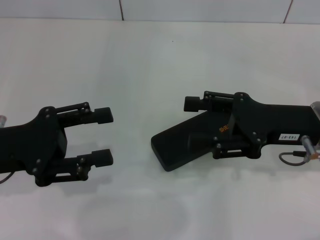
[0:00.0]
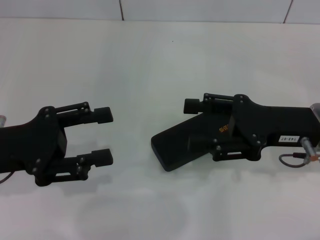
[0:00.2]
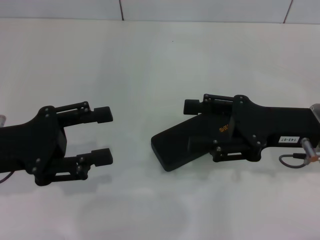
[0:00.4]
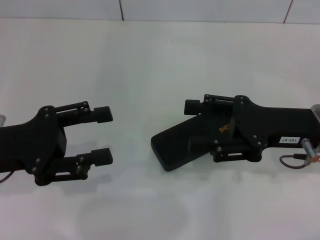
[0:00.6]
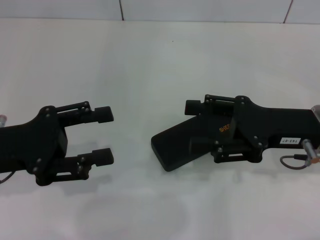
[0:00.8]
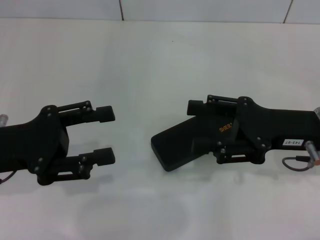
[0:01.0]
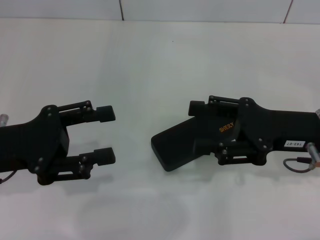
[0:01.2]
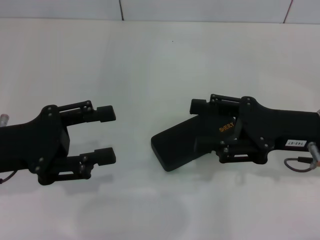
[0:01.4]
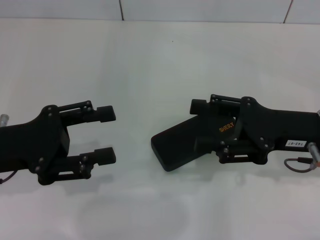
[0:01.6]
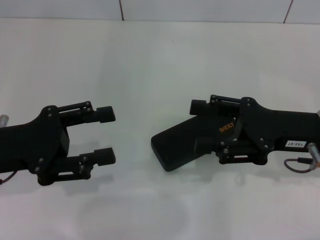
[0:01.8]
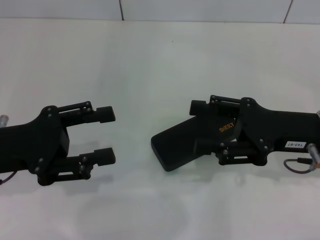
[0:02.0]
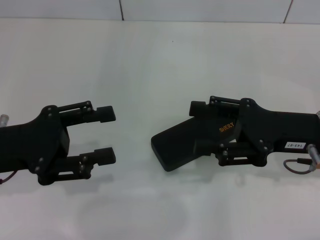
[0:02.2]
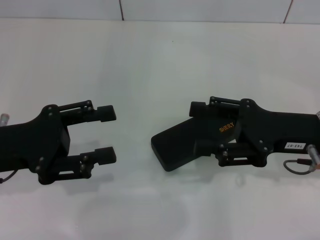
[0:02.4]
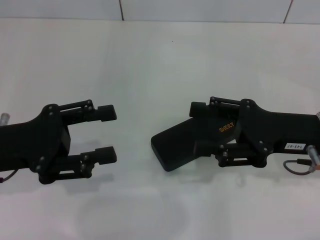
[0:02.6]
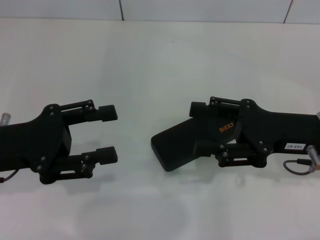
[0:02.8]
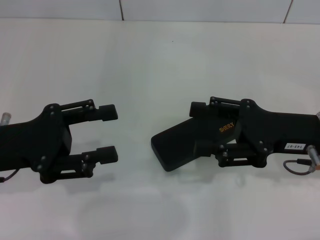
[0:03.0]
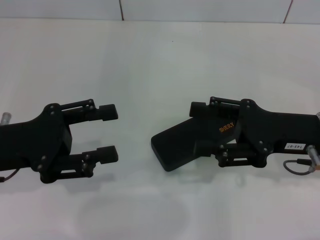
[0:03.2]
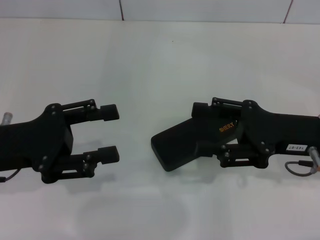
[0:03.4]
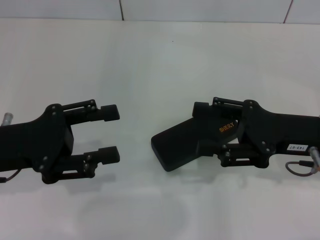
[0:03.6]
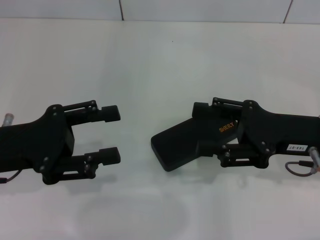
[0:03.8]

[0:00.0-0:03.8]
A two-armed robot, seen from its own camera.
0:00.0 to 0:02.6: The two grippers keep their place.
0:02.6 to 0:03.8: Both grippers stay about where they are.
